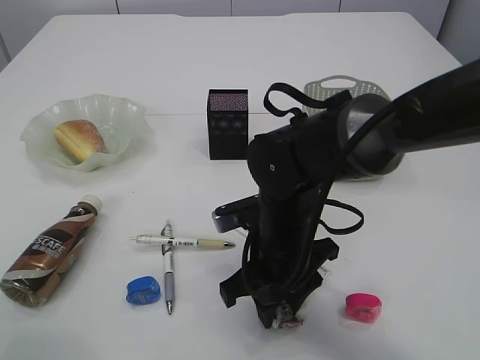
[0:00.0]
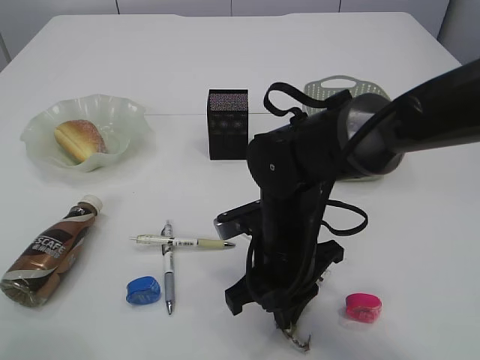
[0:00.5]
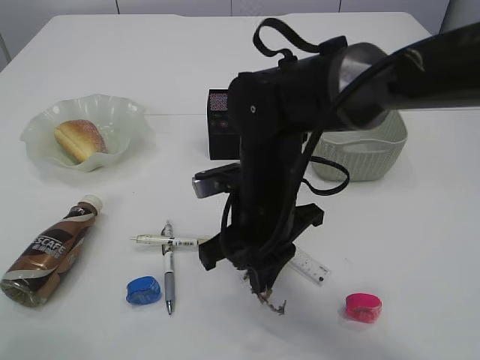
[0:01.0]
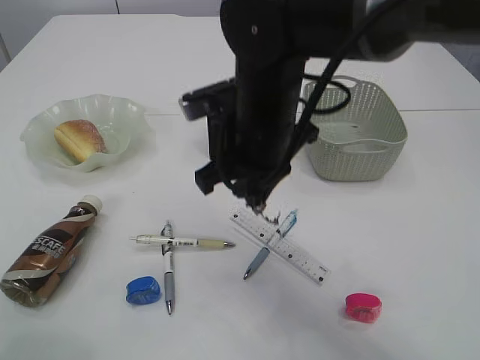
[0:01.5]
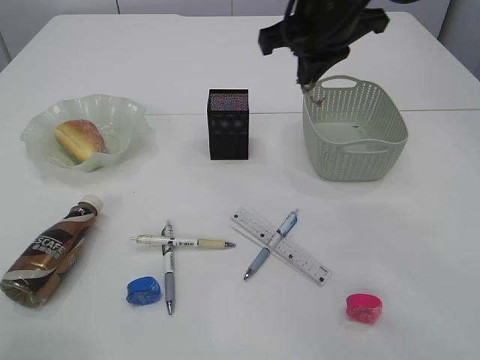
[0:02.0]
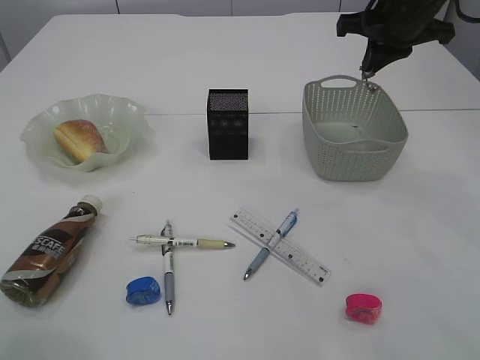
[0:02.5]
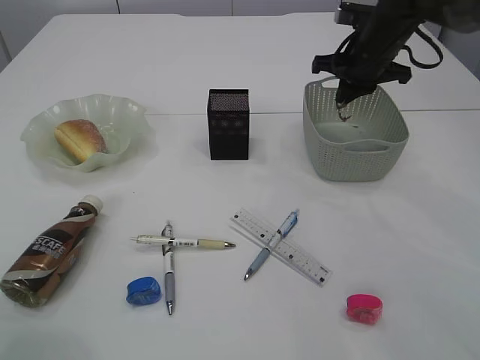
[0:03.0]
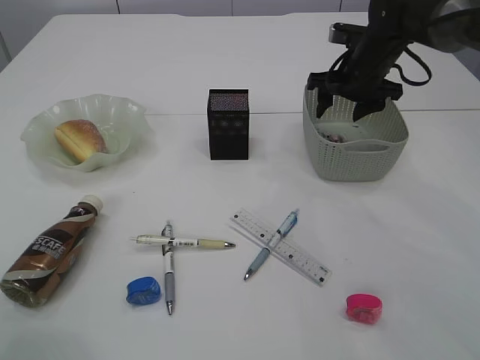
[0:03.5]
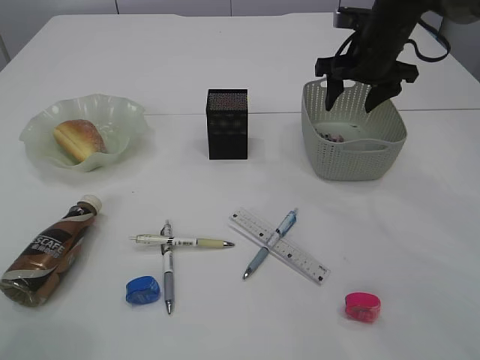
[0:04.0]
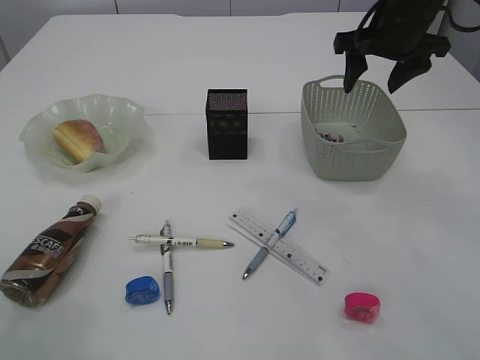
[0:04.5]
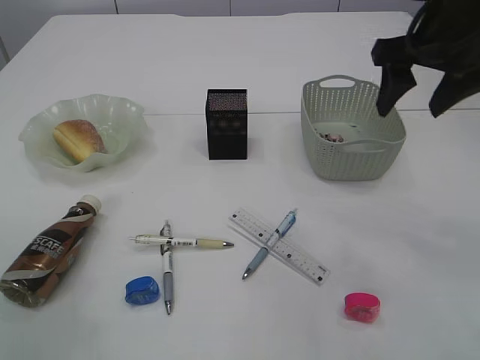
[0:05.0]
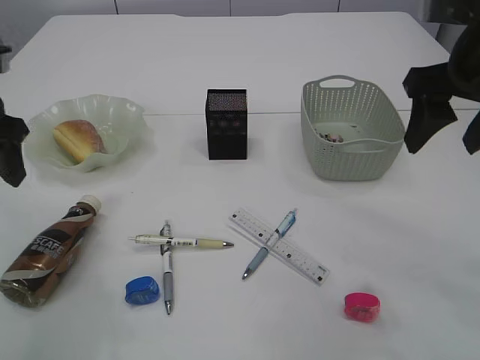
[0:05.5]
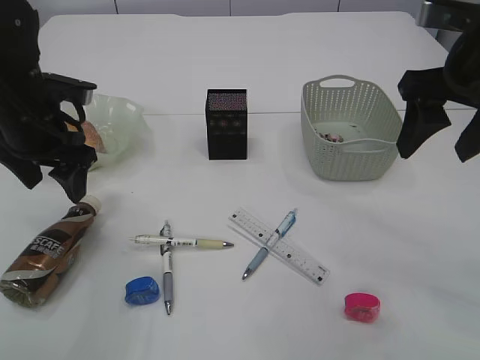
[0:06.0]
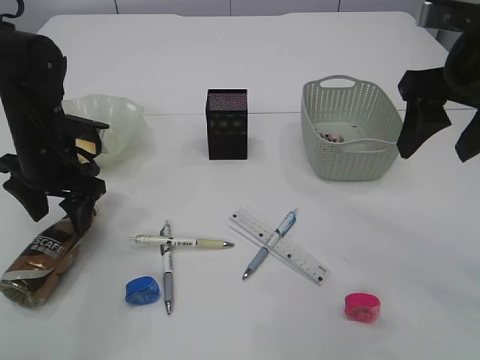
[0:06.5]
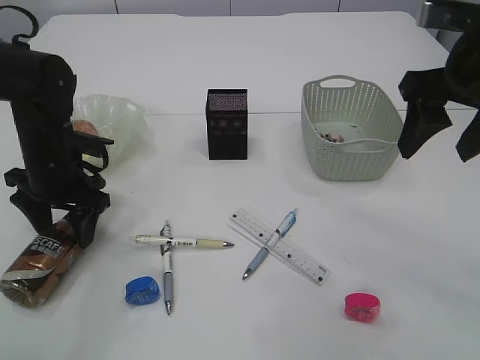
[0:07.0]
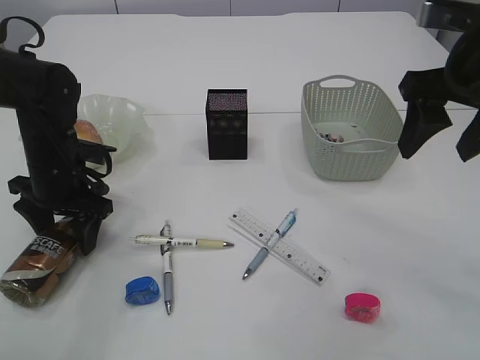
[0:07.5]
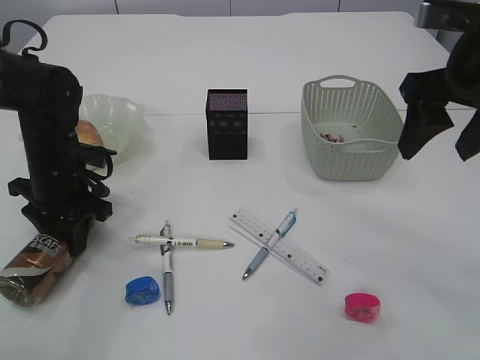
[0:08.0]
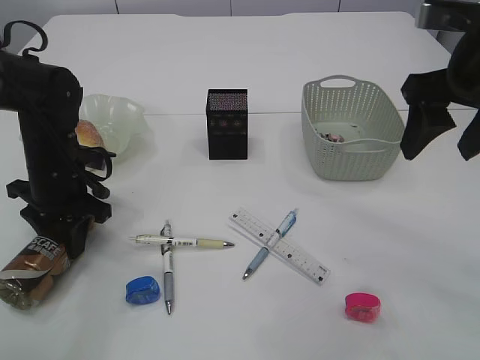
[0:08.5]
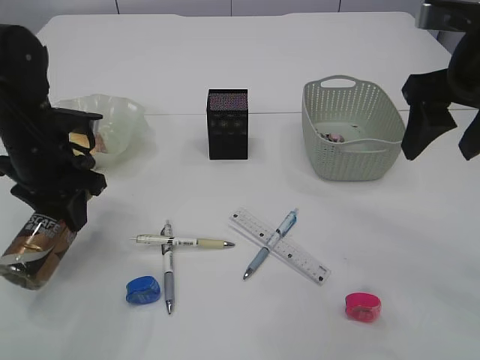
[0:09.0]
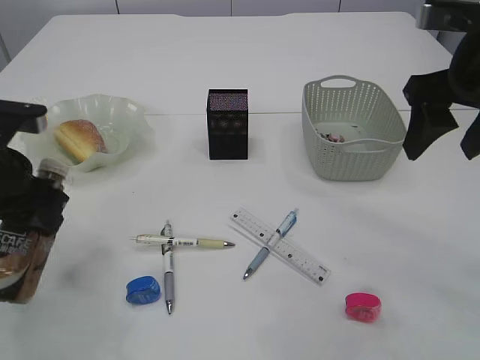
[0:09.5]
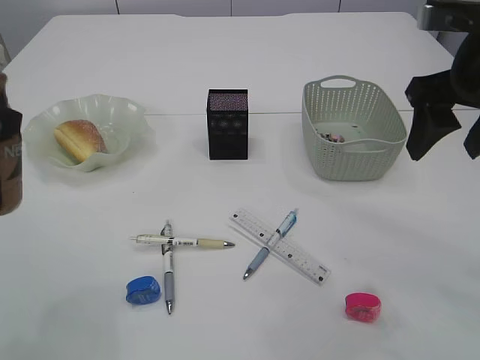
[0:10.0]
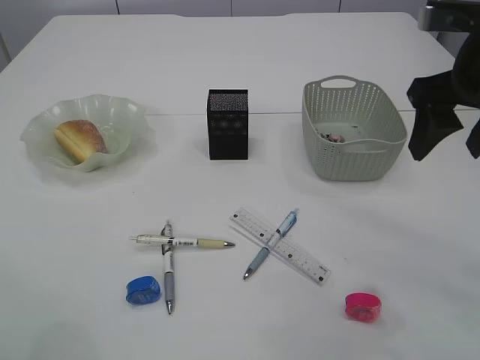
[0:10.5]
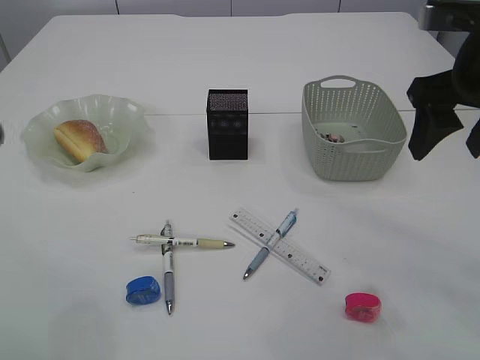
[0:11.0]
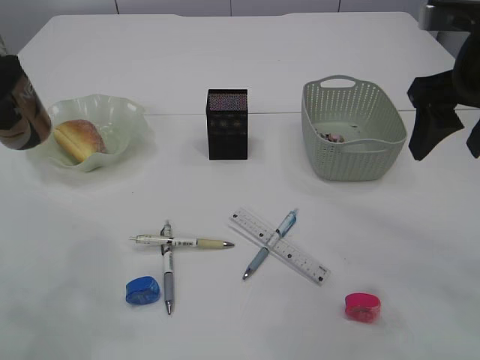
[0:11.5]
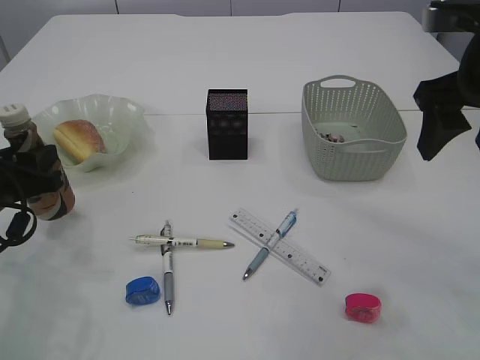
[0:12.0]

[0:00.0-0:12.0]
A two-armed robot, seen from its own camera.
Step, 0:01.5 to 0:04.0: Place the waste paper in the basket.
Step, 0:04.5 to 0:09.5: Pick up the bottle with the left arm.
0:00.0 to 0:02.0: The right gripper travels upward and forward by some 25 cm, and closes.
0:02.0 to 0:04.0: The right gripper heads to the right, forward and downward, covering roughly 15 cm, and opens its fingers.
0:04.0 to 0:06.0: The left gripper shifts some 20 cm downward and forward; the right gripper goes approximately 20 cm backward.
0:06.0 to 0:08.0: The left gripper goes roughly 10 cm downward, and closes.
0:08.0 to 0:10.0: The left gripper travels upward and backward by some 25 cm.
0:10.0 to 0:12.0: The left gripper travels downward by about 15 cm.

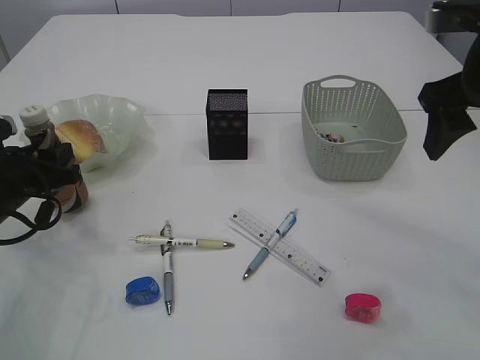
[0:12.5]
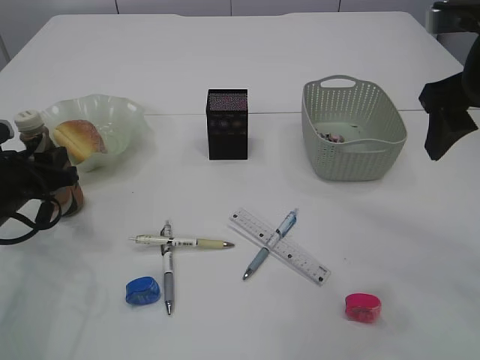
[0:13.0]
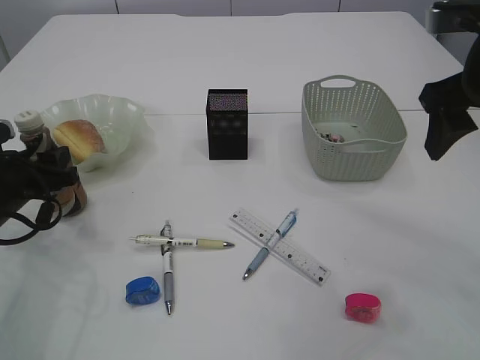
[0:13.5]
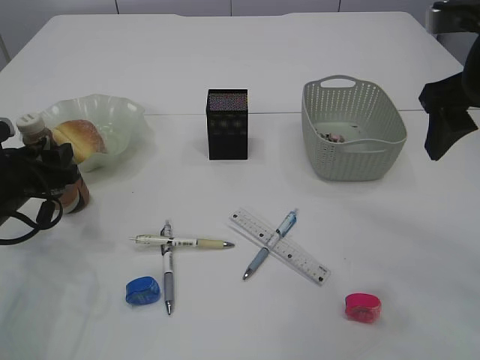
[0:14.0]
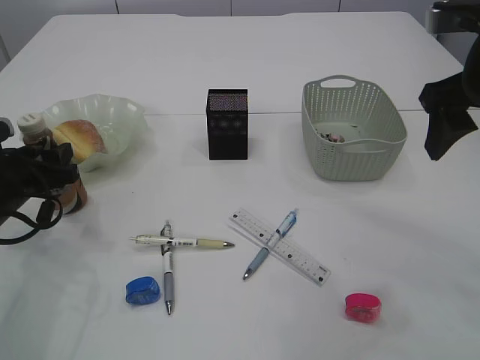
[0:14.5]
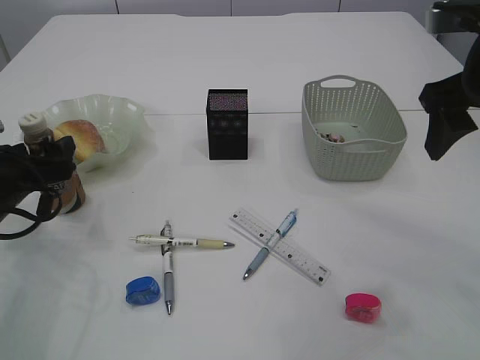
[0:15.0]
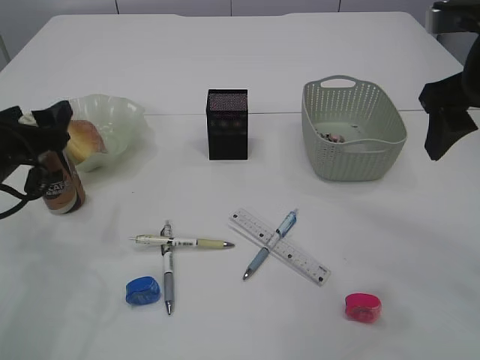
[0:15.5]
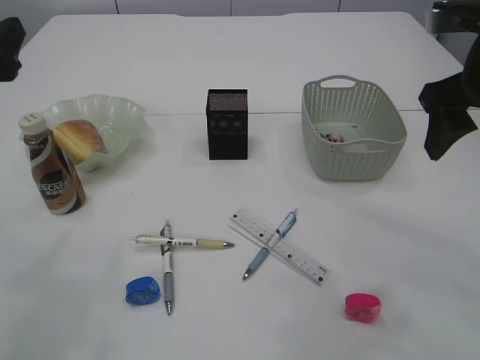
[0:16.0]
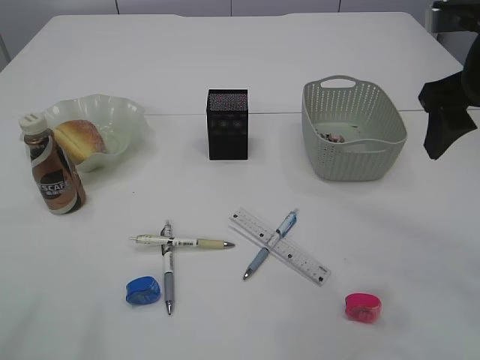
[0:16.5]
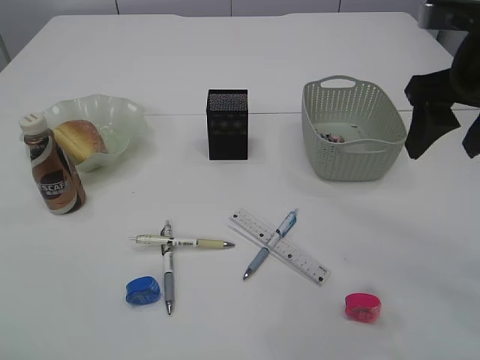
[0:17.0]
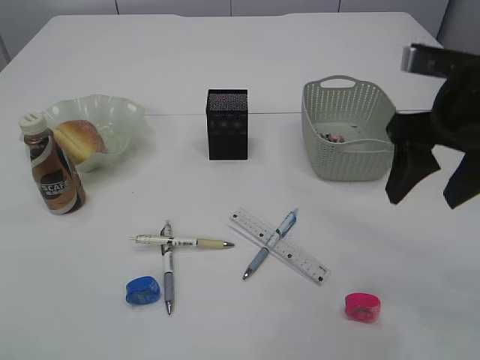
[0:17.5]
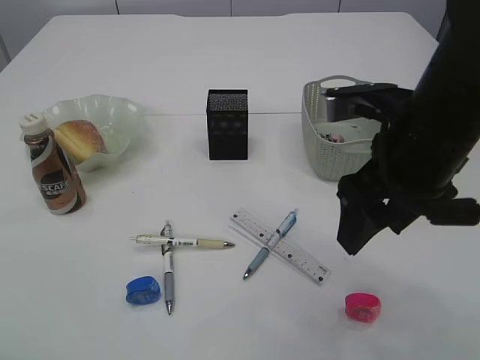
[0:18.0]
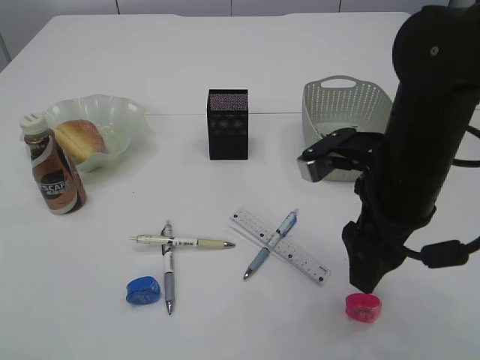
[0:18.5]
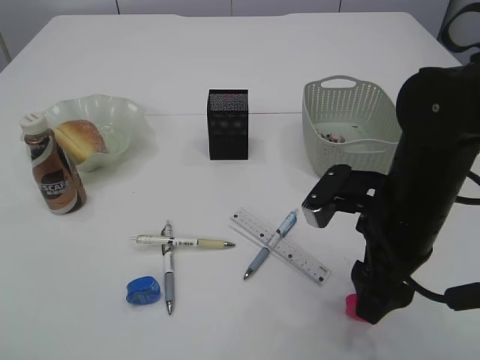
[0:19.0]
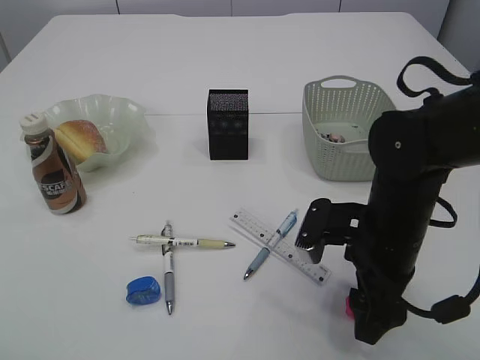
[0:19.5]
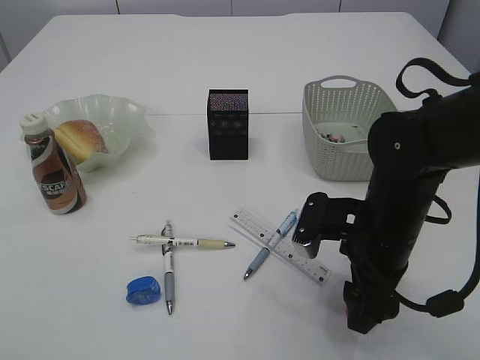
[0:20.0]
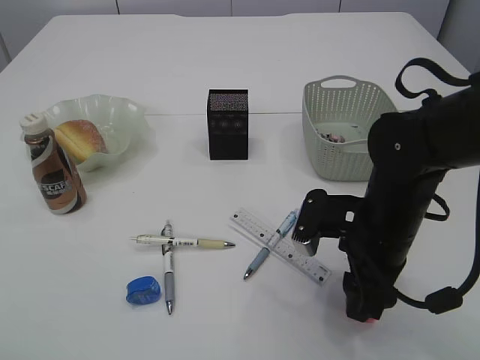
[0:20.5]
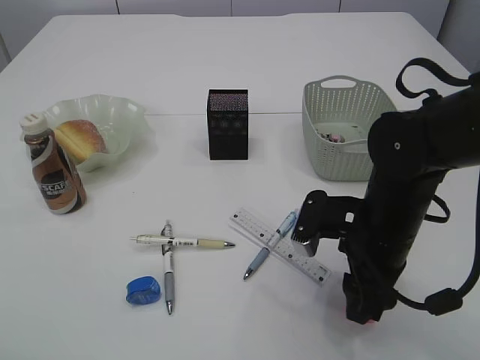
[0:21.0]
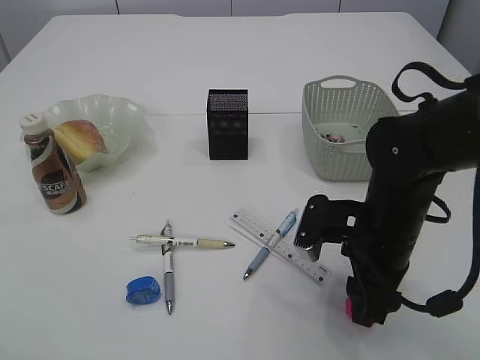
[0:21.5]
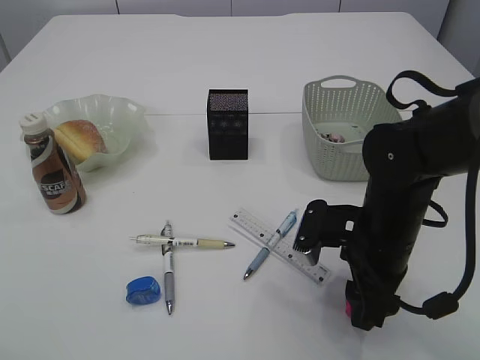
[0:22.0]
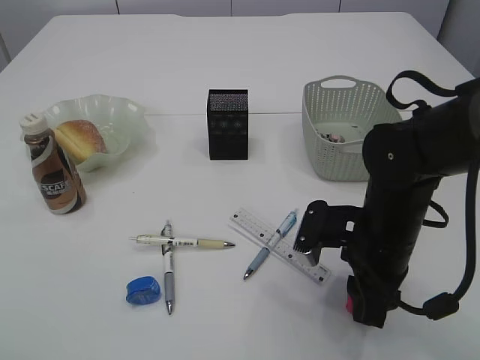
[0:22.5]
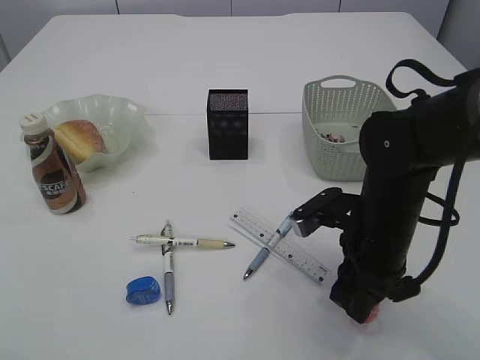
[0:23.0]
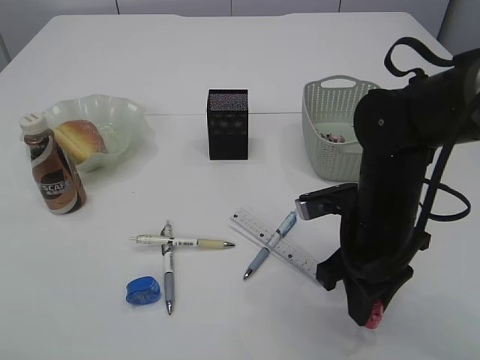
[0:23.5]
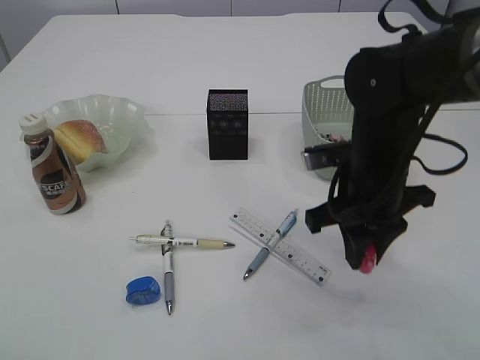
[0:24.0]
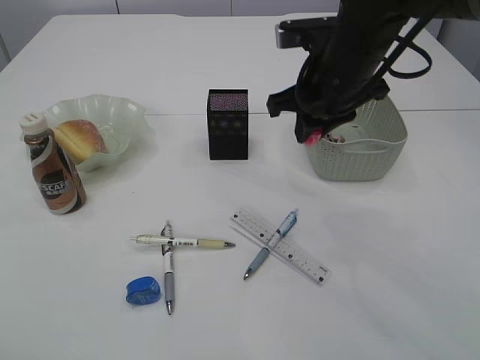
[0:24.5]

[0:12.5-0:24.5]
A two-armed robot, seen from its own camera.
Step, 0:12.5 to 0:15.5: Place the bottle.
Step, 0:16.0 to 0:23.5: Pick up the red pencil sharpener.
0:12.5 to 0:14.5: Neither gripper changes place.
0:14.5 to 0:16.5: The left gripper moves upward and backward, approximately 25 cm.
0:16.5 to 0:18.5: The right gripper goes about 15 cm downward and to the left.
0:18.5 to 0:20.5: The right gripper shifts about 10 cm downward.
0:20.5 to 0:22.5: The two grippers keep their place.
0:22.5 to 0:24.5: The right gripper moves upward and forward, some 15 cm.

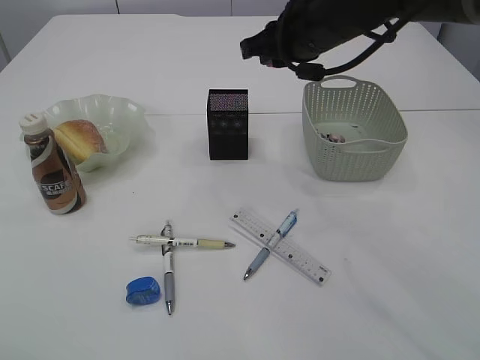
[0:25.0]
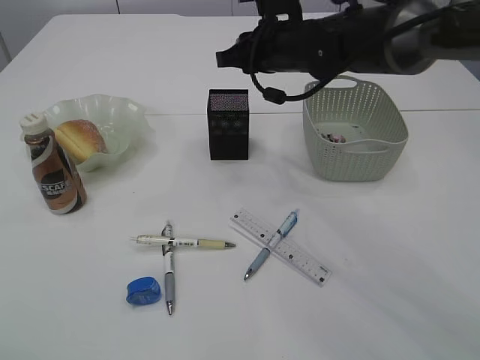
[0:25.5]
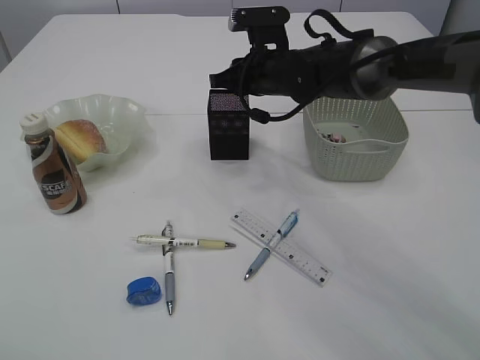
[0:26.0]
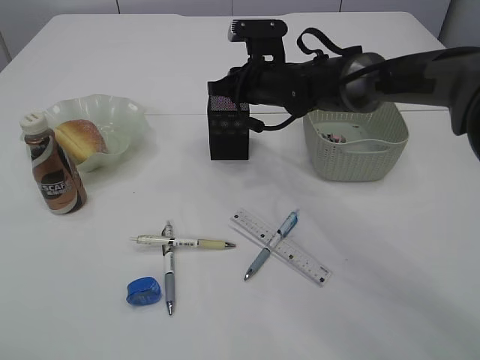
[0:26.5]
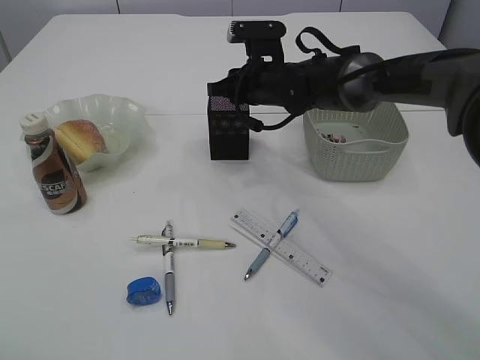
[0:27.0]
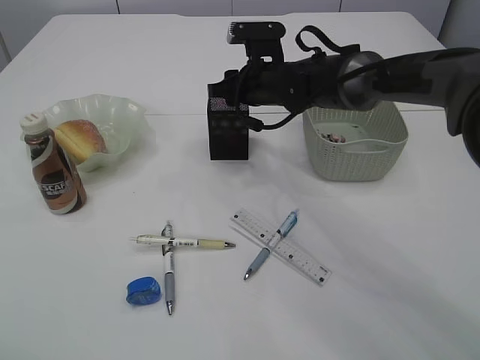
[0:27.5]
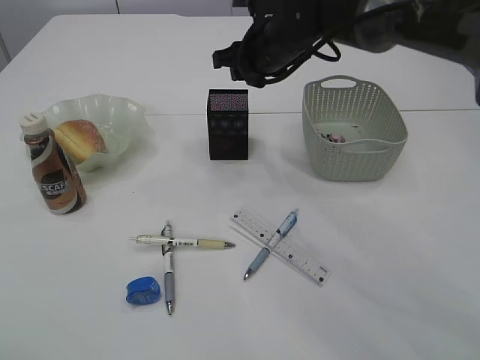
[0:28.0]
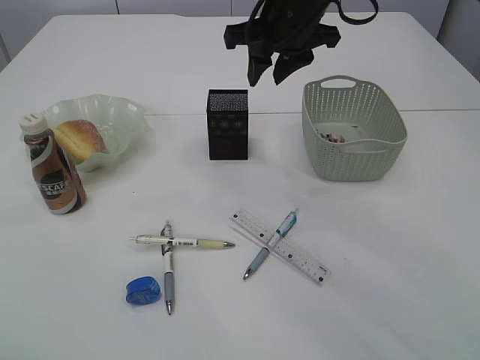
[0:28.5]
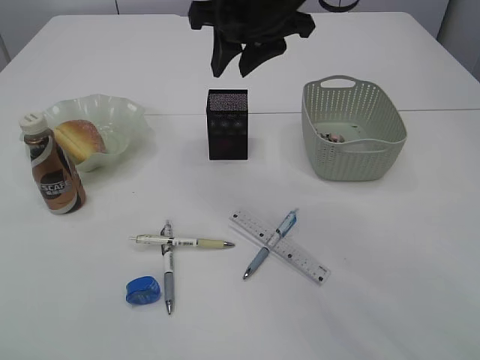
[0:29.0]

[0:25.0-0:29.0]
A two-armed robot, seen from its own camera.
Step, 0:25.0 to 0:28.0: Place the red pencil sharpener into the pen holder.
0:25.0 to 0:27.0: The right gripper travels downward and forward by approximately 15 cm.
0:27.0 to 0:29.0: The right gripper shifts some 20 cm upward and backward.
